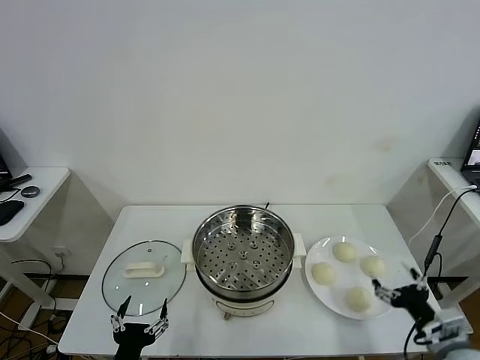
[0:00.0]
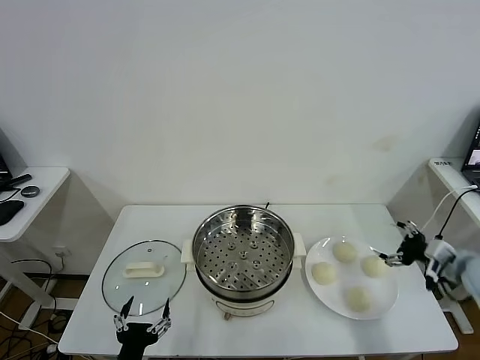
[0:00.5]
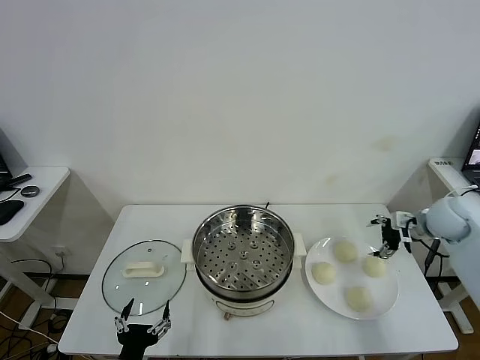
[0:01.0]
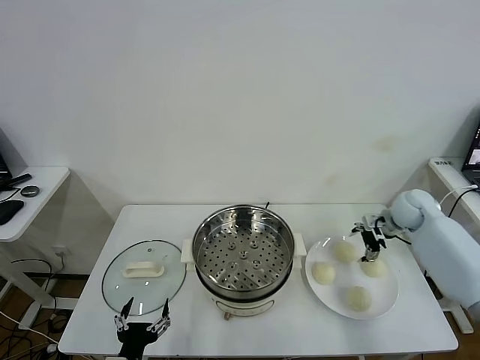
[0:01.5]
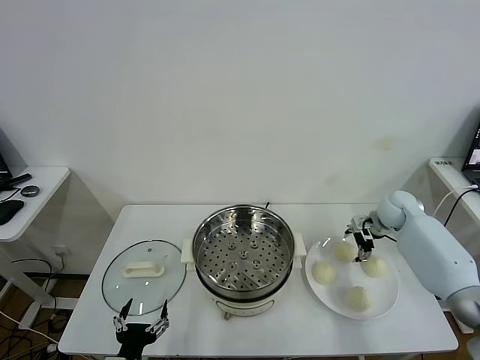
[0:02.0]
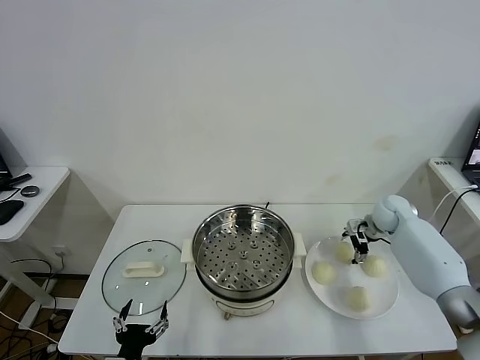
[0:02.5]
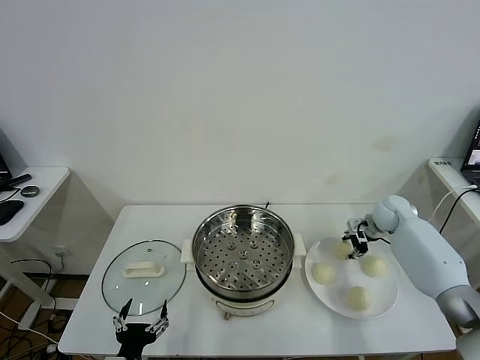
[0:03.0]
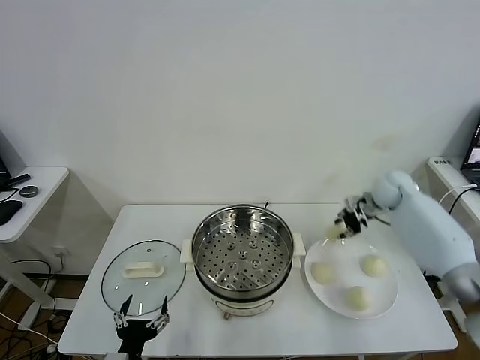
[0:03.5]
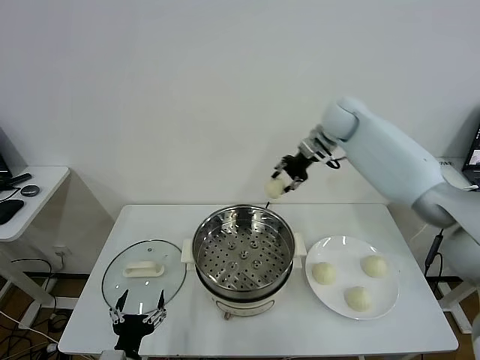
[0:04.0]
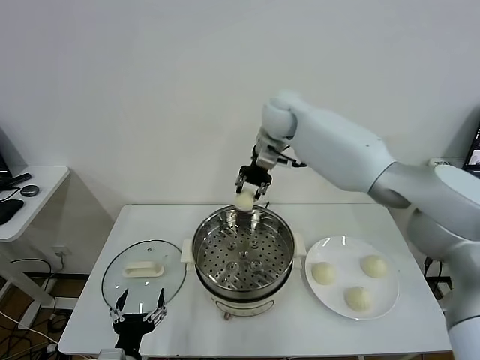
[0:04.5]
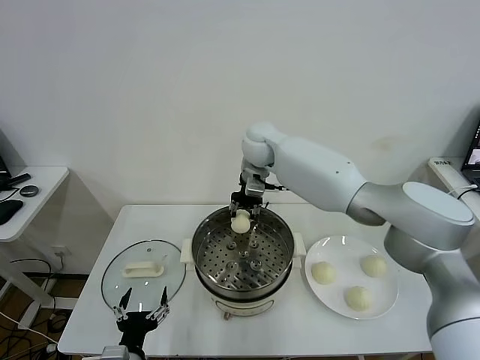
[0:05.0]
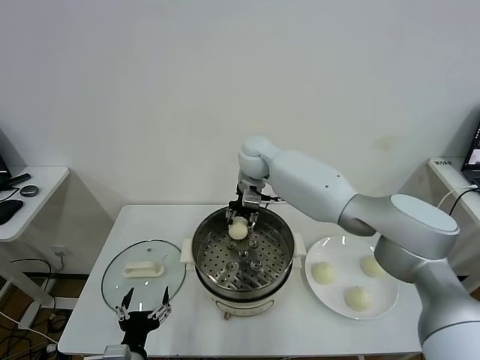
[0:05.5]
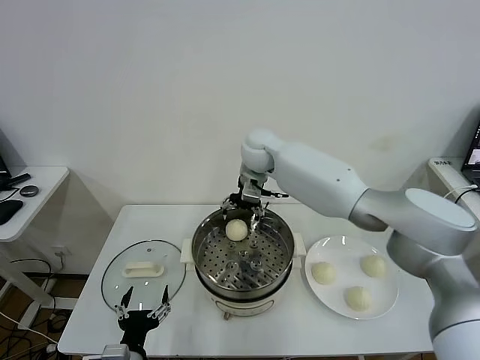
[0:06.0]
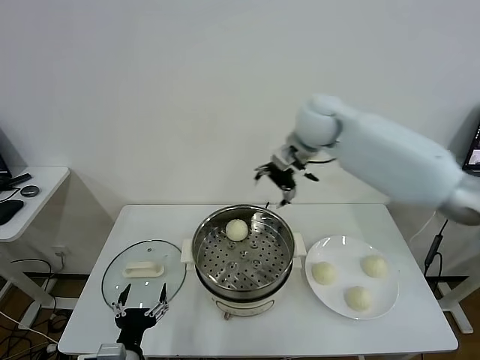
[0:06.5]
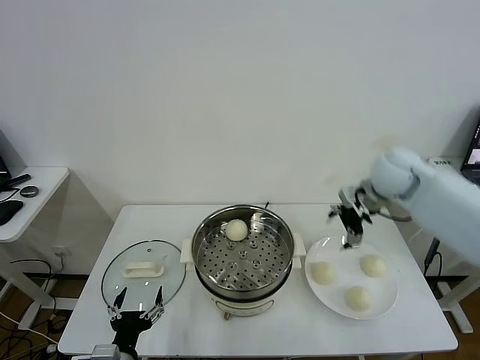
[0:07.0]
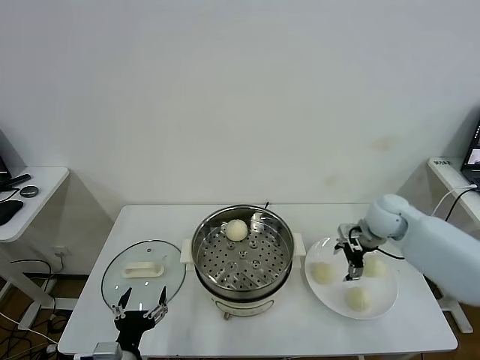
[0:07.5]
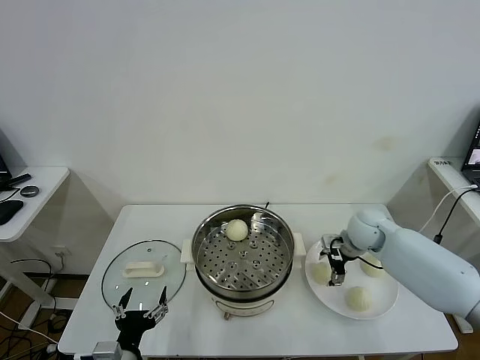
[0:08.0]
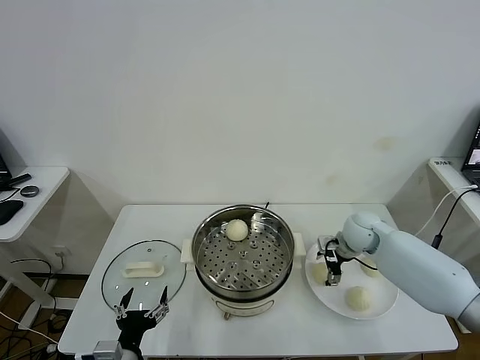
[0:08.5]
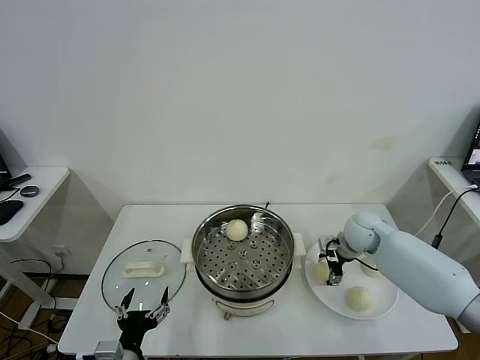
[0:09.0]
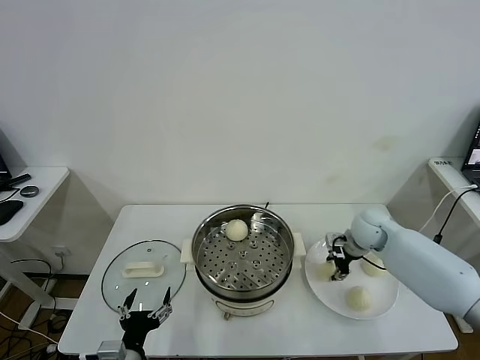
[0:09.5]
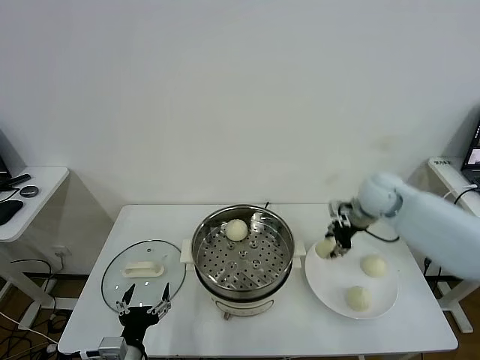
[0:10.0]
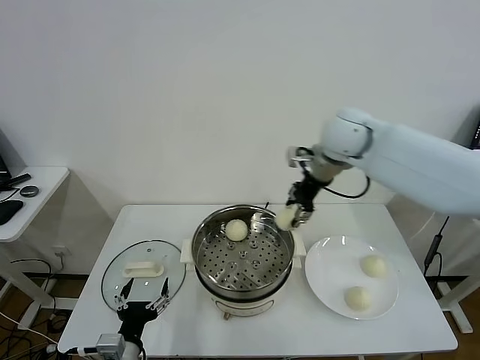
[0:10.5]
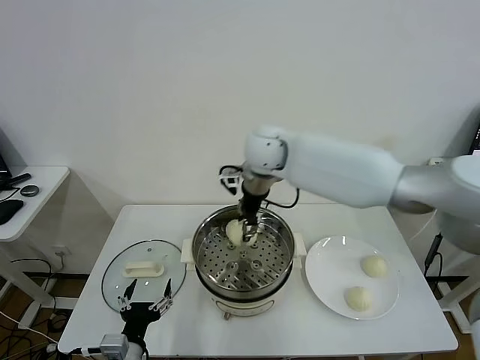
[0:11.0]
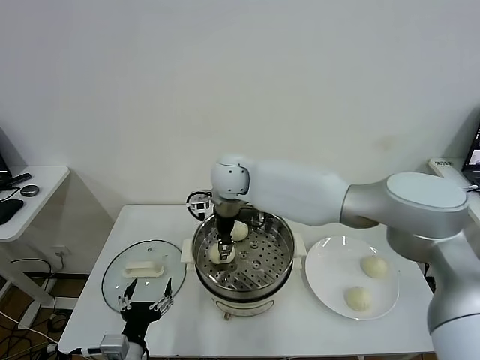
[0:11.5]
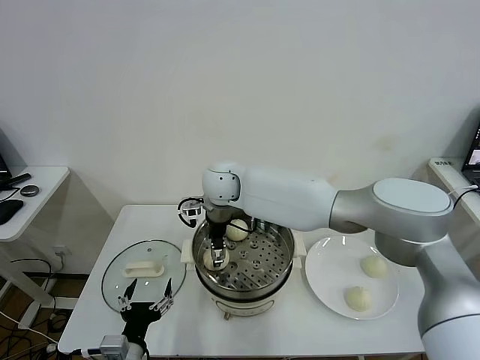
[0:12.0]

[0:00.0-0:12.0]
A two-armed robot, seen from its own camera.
Task of the whole recording: take steamed baozi put them in steamer.
Step, 0.0 to 2.5 s: Grasp the baozi in the plate with right gripper.
Step, 3.0 to 5.5 s: Place the baozi on the steamer with right gripper.
Step, 6.0 to 9.0 s: Grasp the baozi in the plate with right gripper.
2.0 to 4.0 s: The right gripper goes about 30 cm upward, to the left and forward, and closes its fingers.
4.0 to 6.0 s: The right gripper shifts approximately 20 cm to the left, and opens its fingers.
6.0 to 8.0 s: The right gripper heads to the right, downward and backward, covering approximately 35 cm.
8.0 to 10.0 s: The right gripper shifts approximately 10 cm upward, and closes up.
10.0 to 12.0 s: The right gripper heads to the left, covering some 35 cm, and opens.

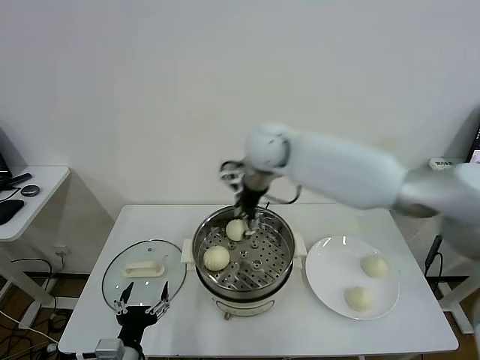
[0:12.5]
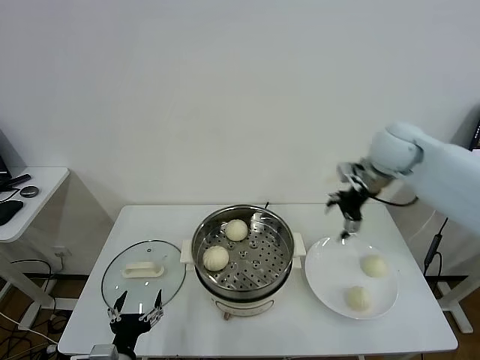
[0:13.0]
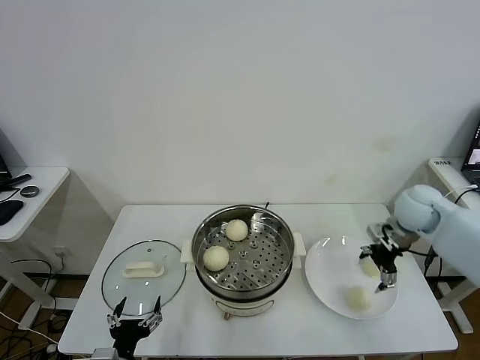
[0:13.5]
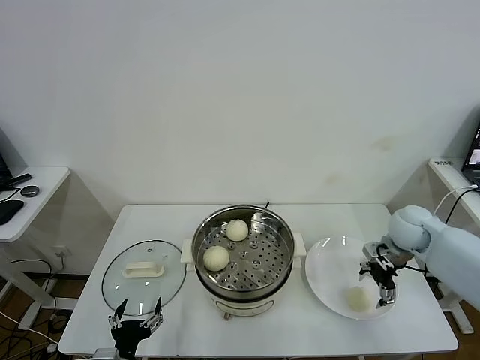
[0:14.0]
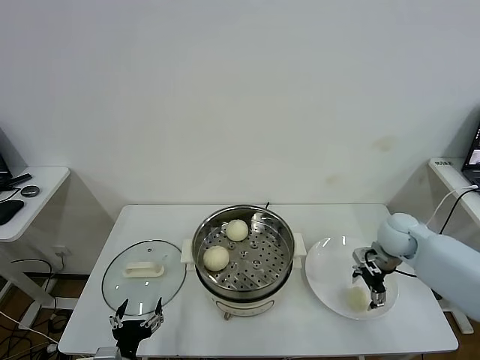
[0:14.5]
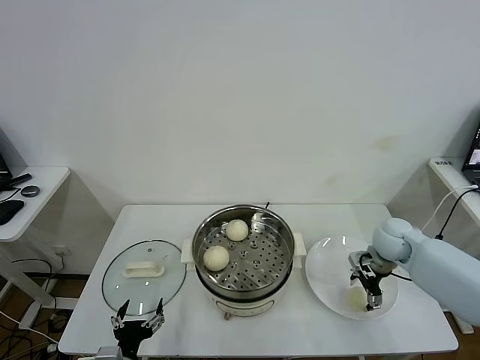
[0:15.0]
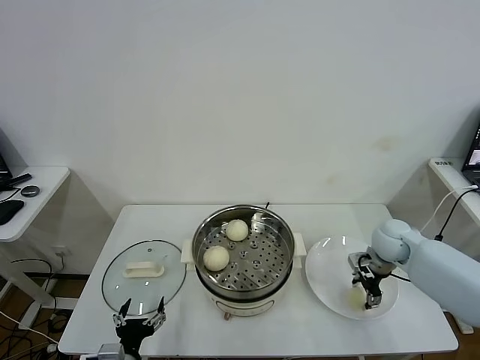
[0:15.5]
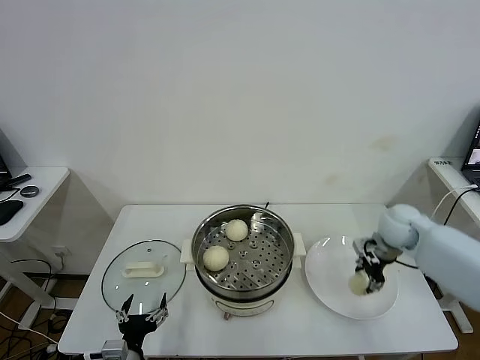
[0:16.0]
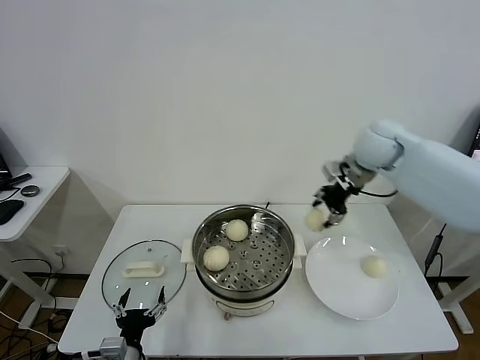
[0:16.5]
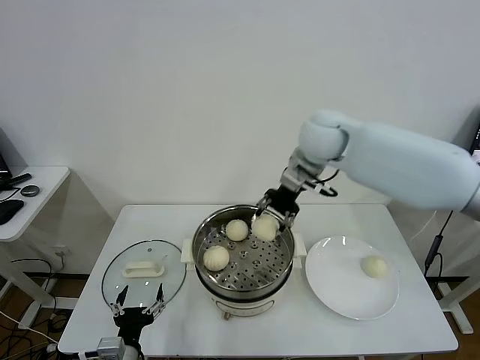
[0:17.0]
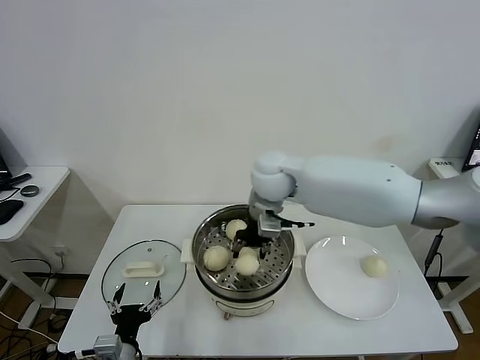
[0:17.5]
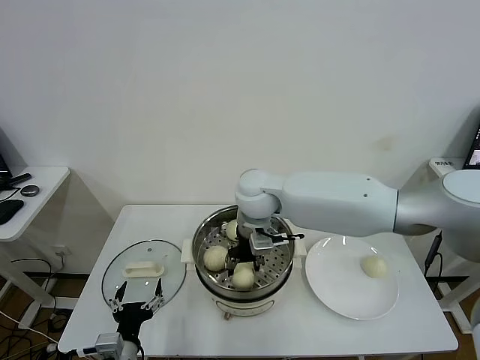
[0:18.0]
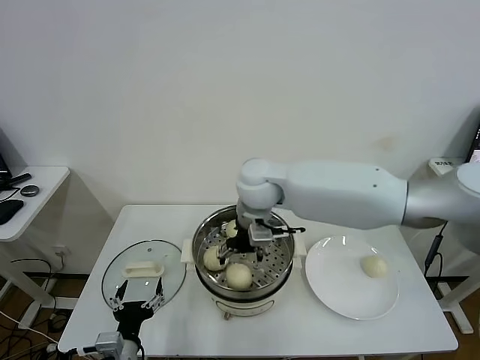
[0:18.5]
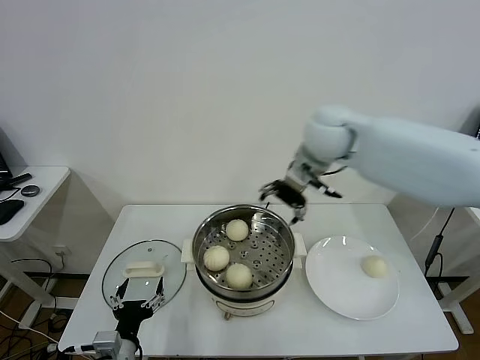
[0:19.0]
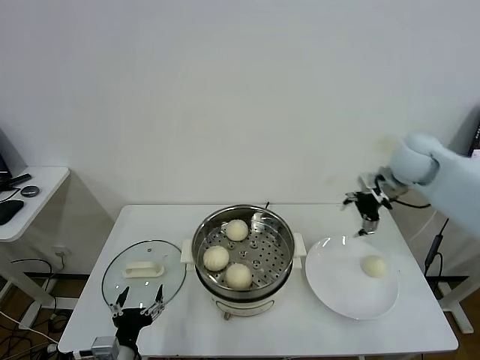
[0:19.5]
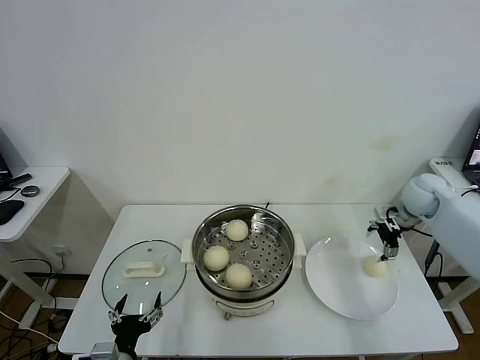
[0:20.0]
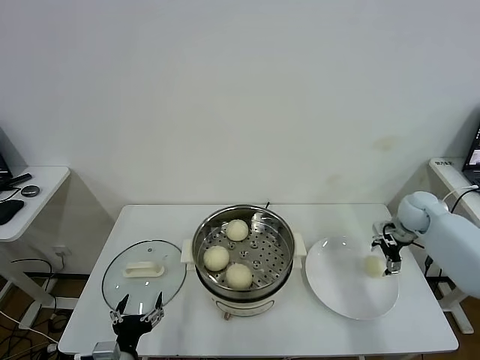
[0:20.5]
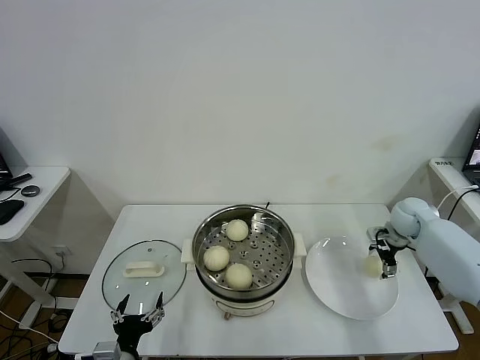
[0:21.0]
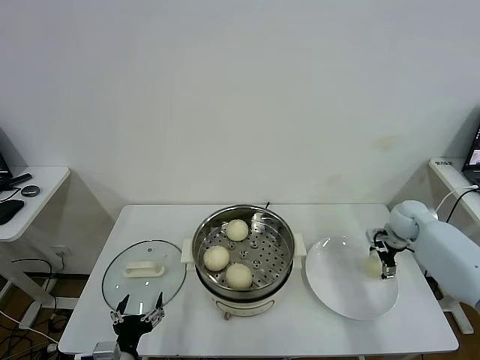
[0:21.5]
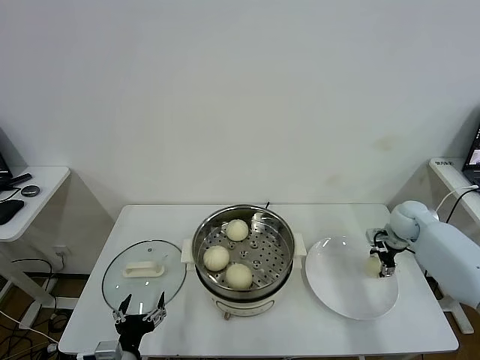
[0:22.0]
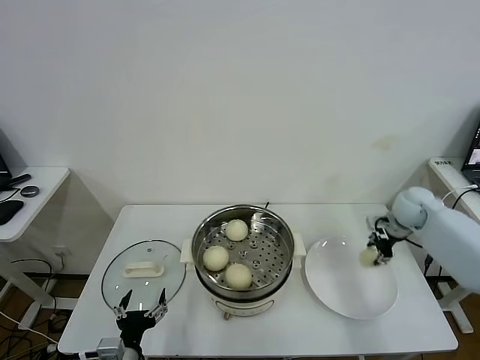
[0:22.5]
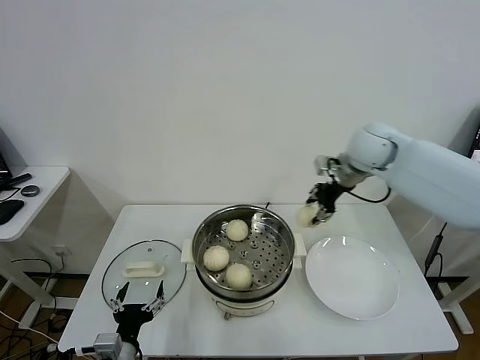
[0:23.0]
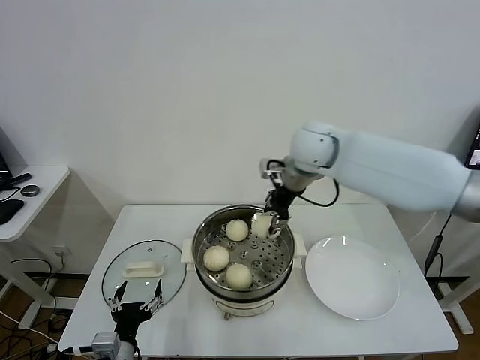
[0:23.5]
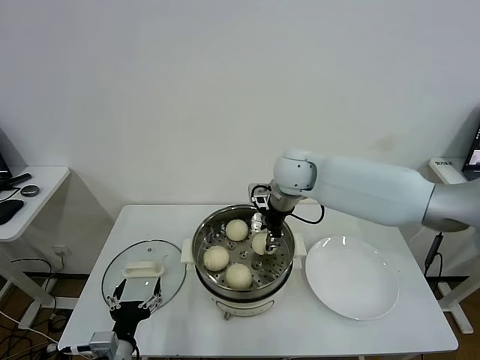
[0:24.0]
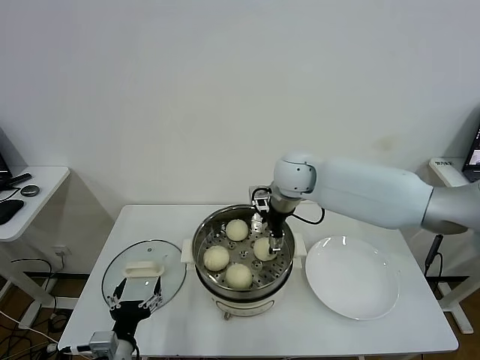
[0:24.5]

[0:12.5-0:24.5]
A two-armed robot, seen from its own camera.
Task of the whole recording: take steamed baozi put them in steamer.
Step, 12.5 to 15.5 s: Grasp the baozi in the plate with right gripper.
Step, 16.0 to 18.5 s: Place the baozi on the steamer with right gripper.
Step, 19.0 to 22.0 s: Grasp the baozi in the plate with right gripper.
12.5 to 14.5 s: The right gripper is displaced to the right and downward by roughly 35 cm.
14.5 to 16.5 s: The right gripper heads upward and to the left, covering approximately 20 cm, and closes its fingers.
16.5 to 18.5 s: The right gripper is displaced to the left by approximately 25 cm, and opens its fingers.
18.5 to 20.5 s: The right gripper heads to the right, covering approximately 40 cm.
20.5 to 22.5 s: The right gripper closes its fingers.
22.5 to 24.5 s: The right gripper goes about 30 cm to the left, and opens.

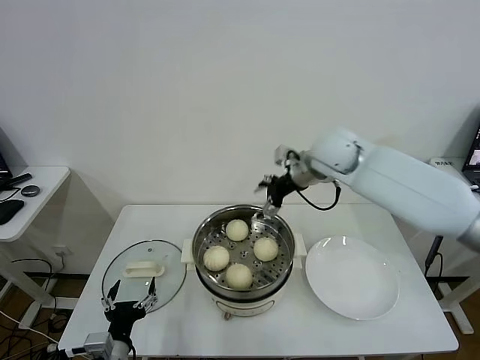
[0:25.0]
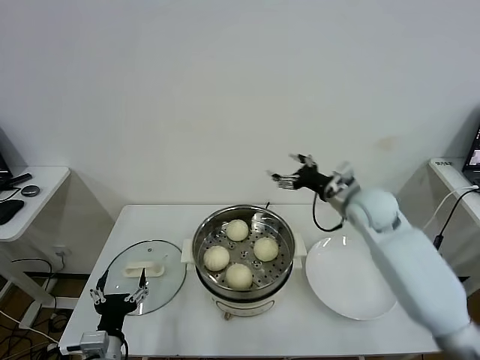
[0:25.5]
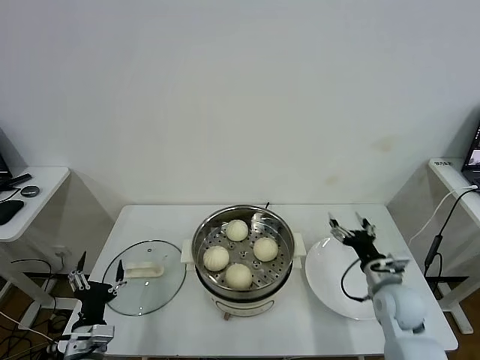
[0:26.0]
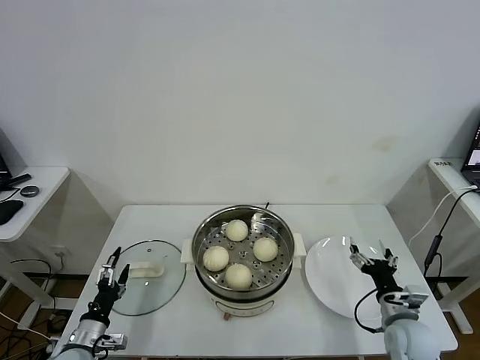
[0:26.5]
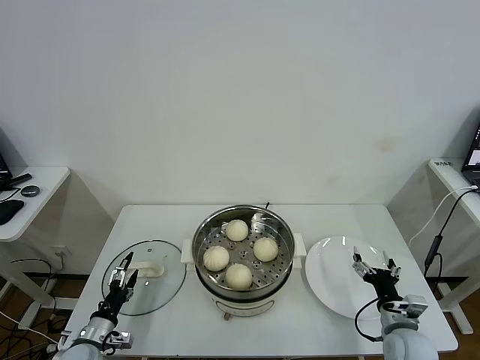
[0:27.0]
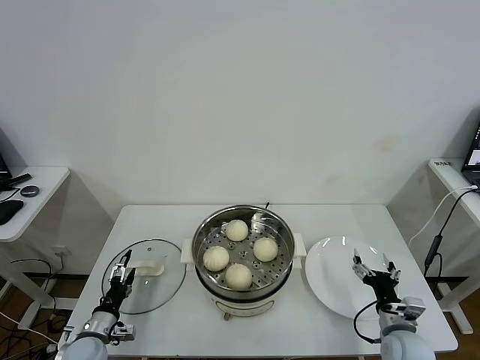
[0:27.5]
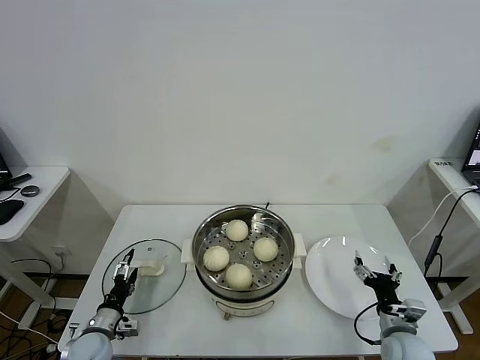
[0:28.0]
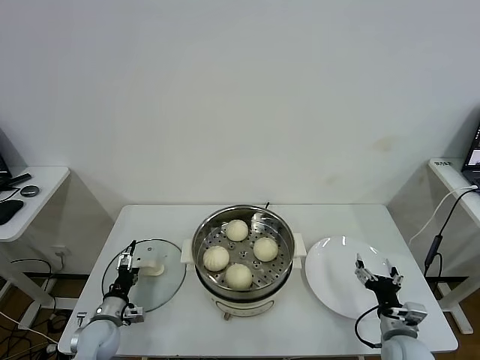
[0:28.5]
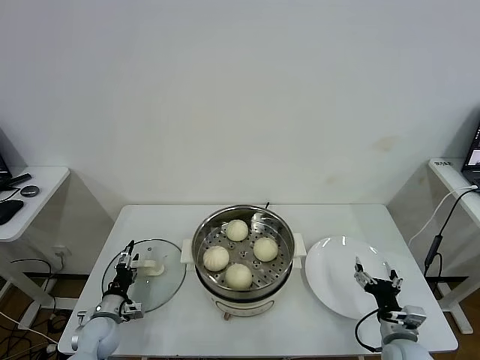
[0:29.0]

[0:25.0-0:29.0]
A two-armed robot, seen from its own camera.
Task of the whole recording: take steamed baozi put them in steamer.
25.0 to 27.0 s: The right gripper heads downward, backward and to the right, covering approximately 50 cm. Meanwhile the left gripper moves to the left, downward and forward, approximately 15 cm.
27.0 to 29.0 s: The left gripper heads forward, covering about 5 cm.
